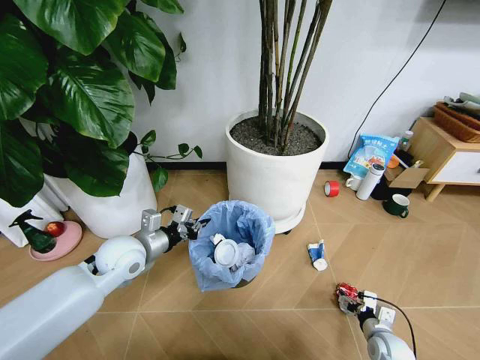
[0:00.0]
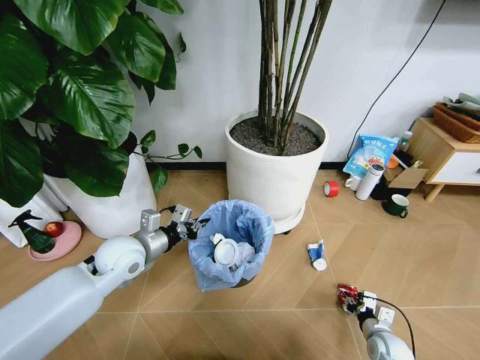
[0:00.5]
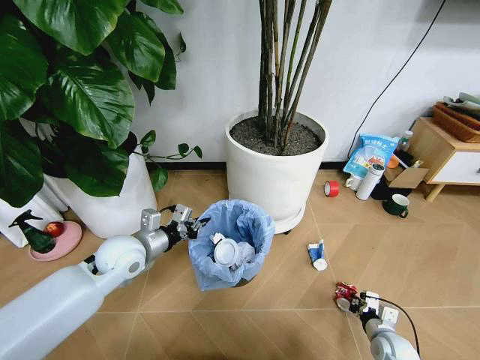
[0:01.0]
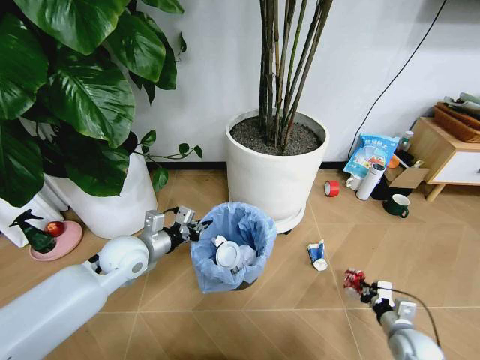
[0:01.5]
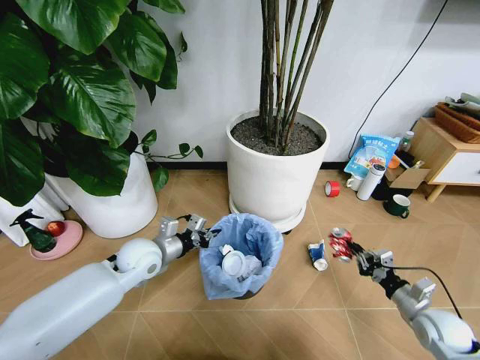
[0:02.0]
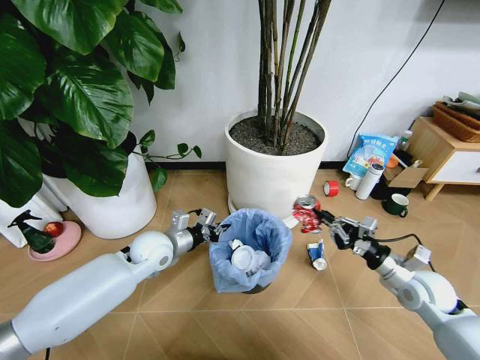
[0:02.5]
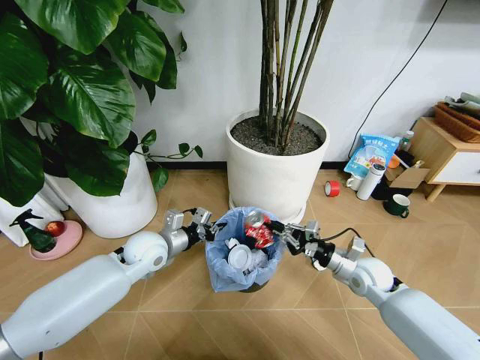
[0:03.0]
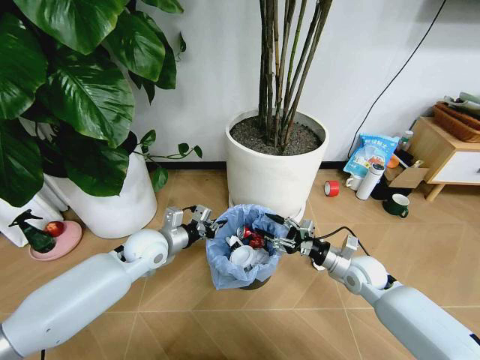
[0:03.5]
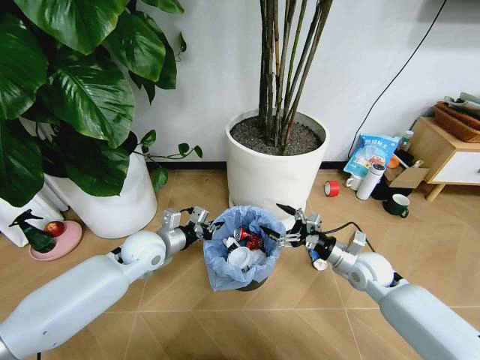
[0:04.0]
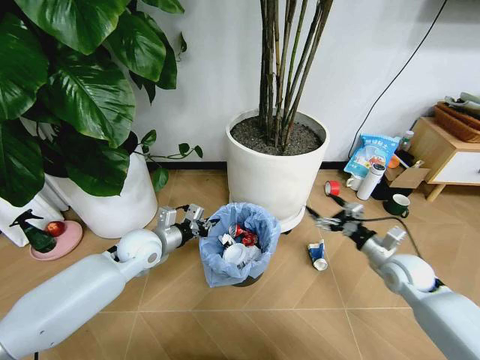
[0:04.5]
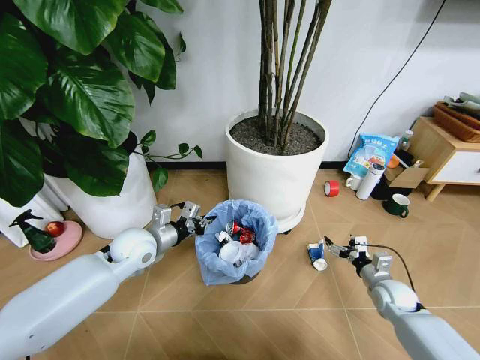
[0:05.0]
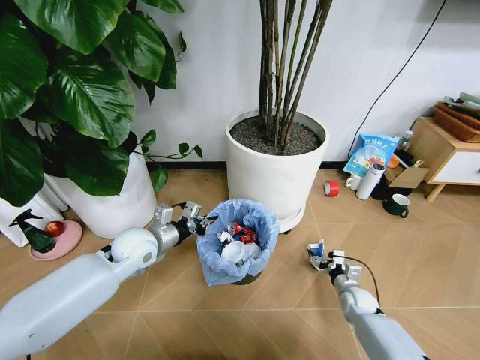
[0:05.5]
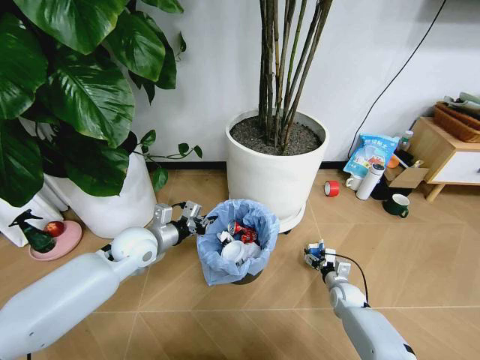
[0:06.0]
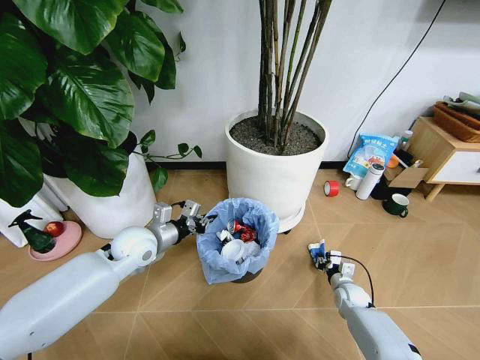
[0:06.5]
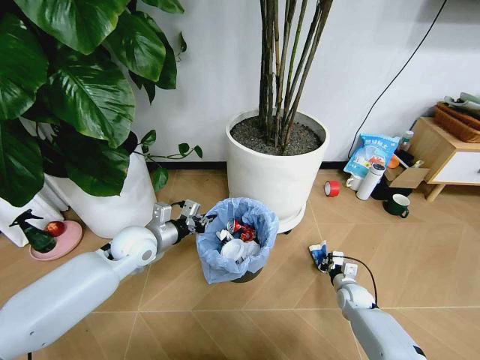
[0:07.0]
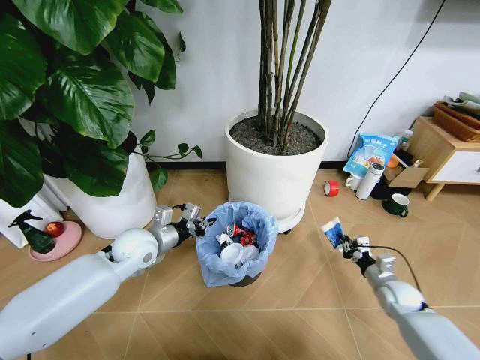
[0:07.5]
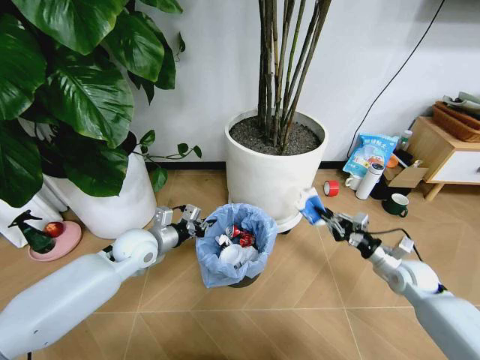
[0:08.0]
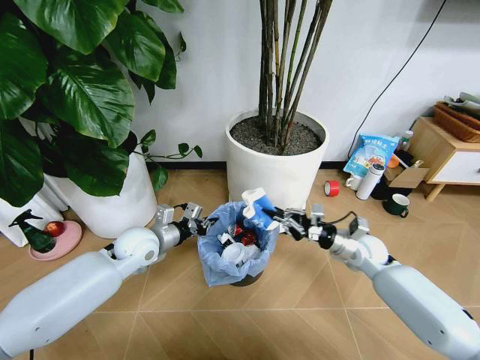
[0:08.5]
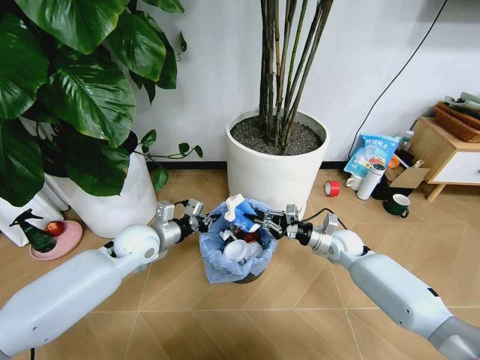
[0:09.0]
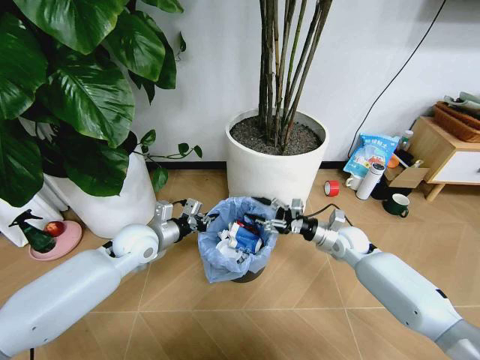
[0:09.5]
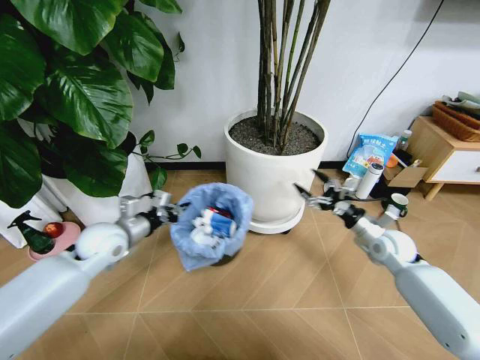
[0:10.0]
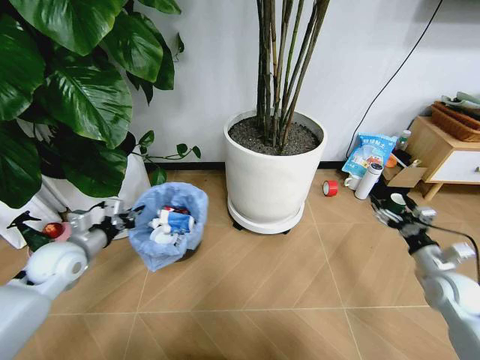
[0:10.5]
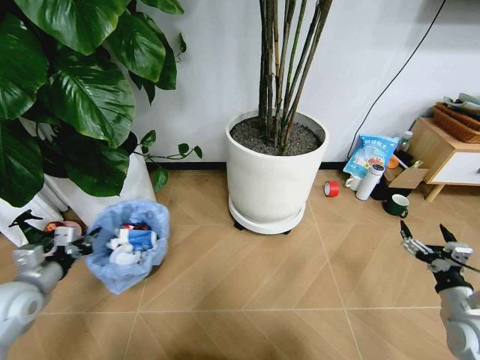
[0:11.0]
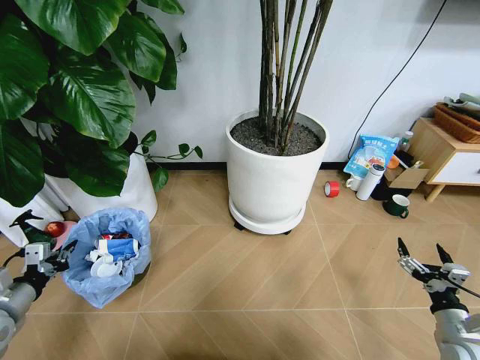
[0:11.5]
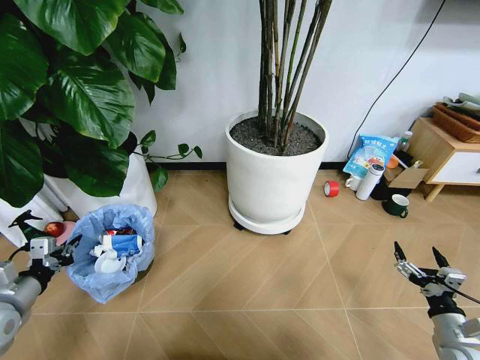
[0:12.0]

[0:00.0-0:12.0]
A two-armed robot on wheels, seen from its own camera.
Task of the whole recording: Pick up the trash bin and place the garbage on the floor into it.
0:00.0 to 0:02.0: The right gripper heads upward and to the right, covering about 15 cm, and closes up.
0:02.0 to 0:04.0: The right gripper shifts roughly 20 cm to the left and forward, and opens up.
0:04.0 to 0:06.0: The right gripper is displaced downward by approximately 20 cm.
0:06.0 to 0:08.0: The right gripper travels upward and to the right by some 20 cm, and closes up.
0:08.0 to 0:10.0: The right gripper moves forward, some 5 cm, moves approximately 15 cm to the left and comes back, and opens its fingers, while the left gripper shifts some 5 cm to the left.
0:10.0 to 0:12.0: The left gripper heads to the left and backward, covering some 20 cm. Meanwhile the right gripper travels backward by about 25 cm.

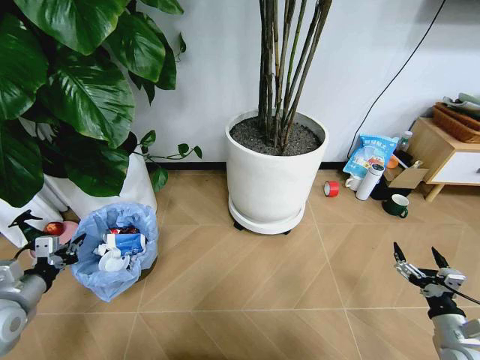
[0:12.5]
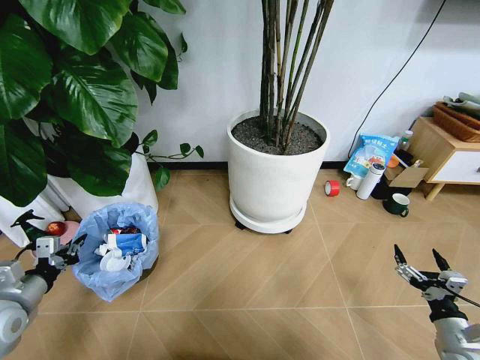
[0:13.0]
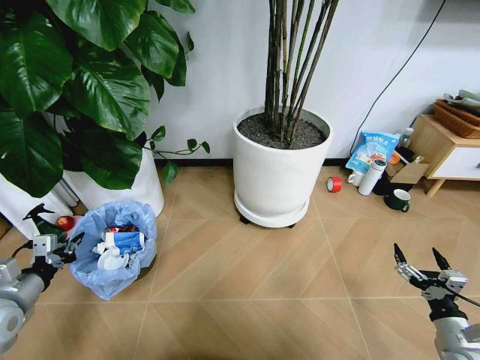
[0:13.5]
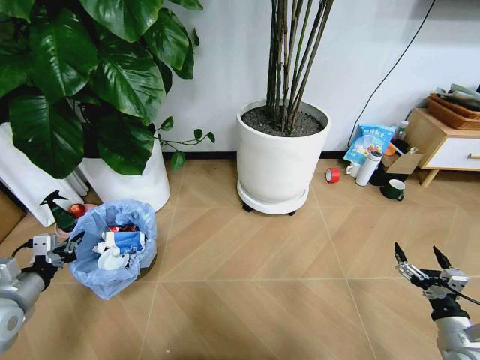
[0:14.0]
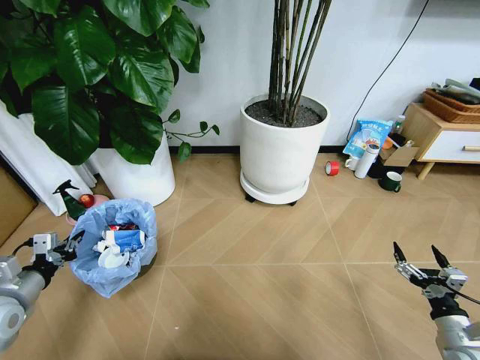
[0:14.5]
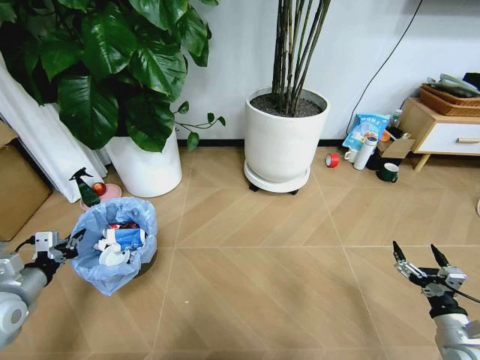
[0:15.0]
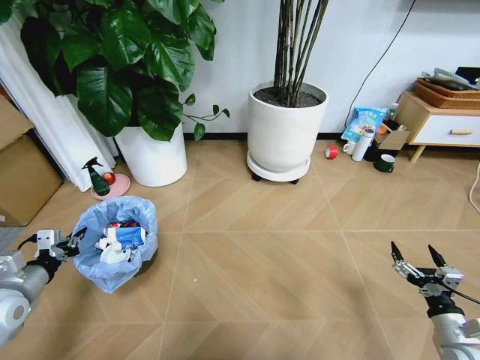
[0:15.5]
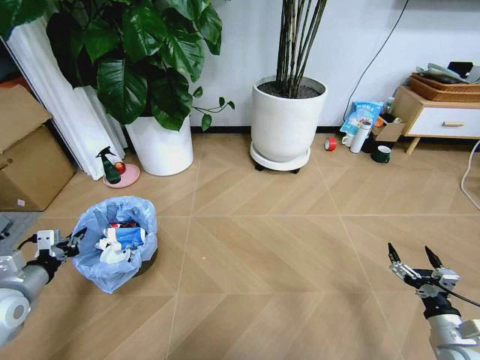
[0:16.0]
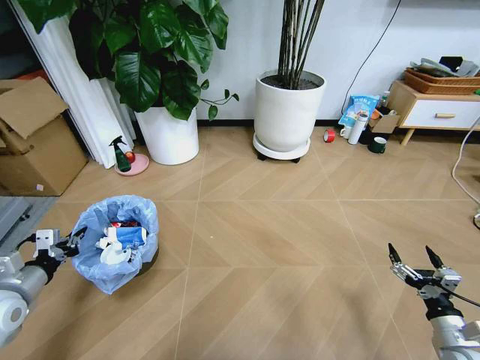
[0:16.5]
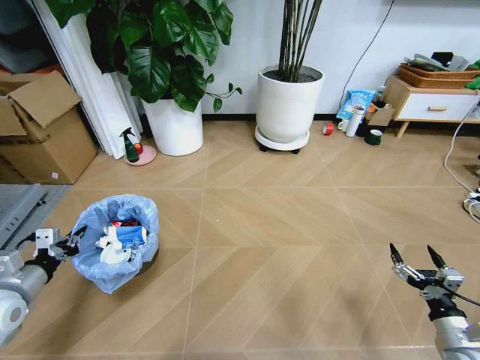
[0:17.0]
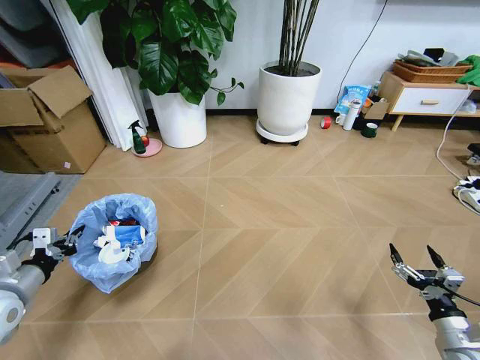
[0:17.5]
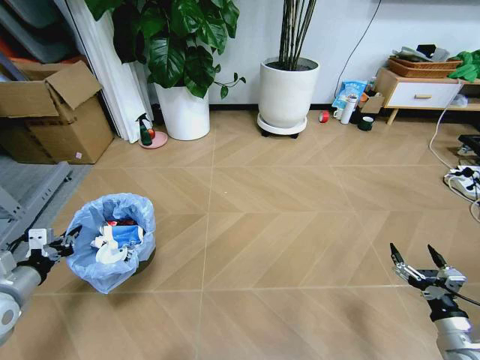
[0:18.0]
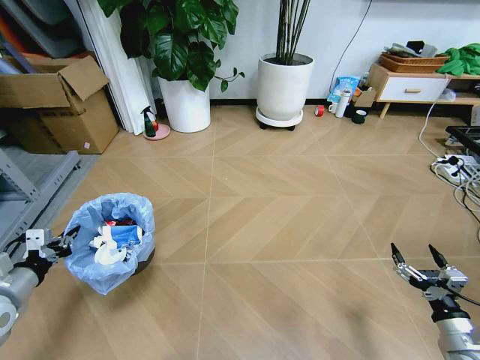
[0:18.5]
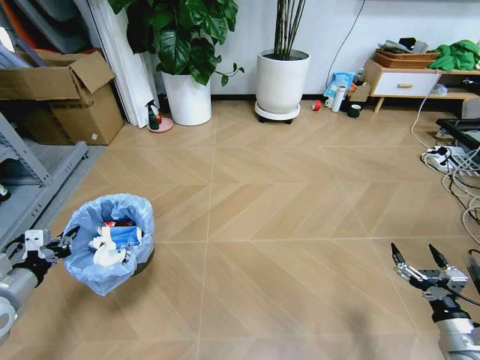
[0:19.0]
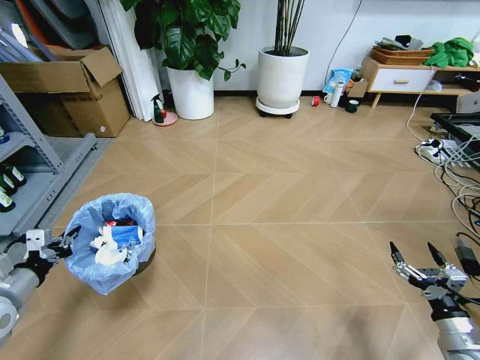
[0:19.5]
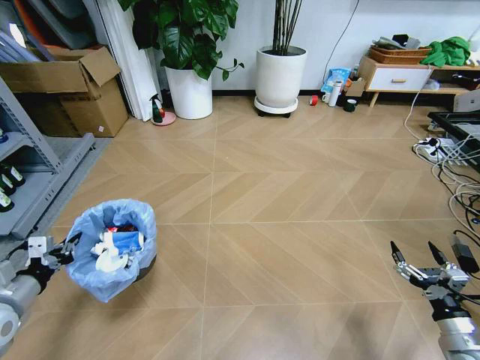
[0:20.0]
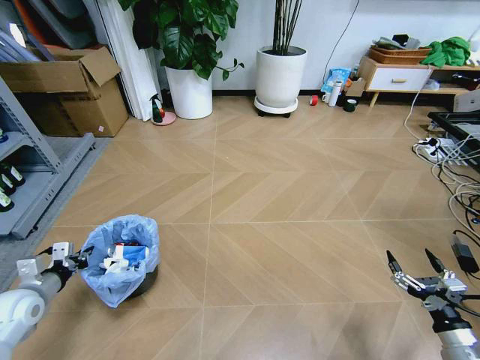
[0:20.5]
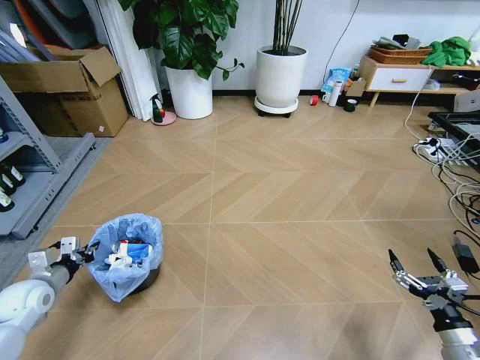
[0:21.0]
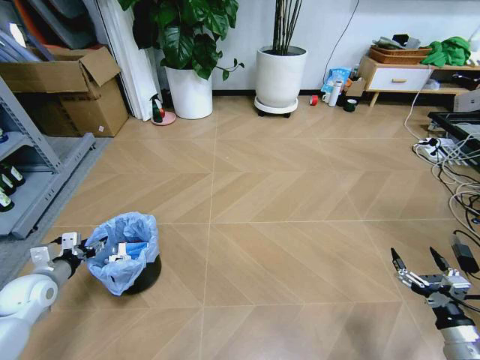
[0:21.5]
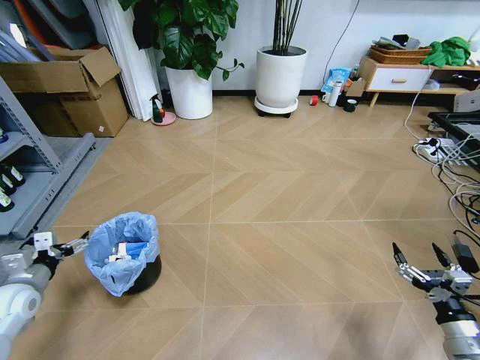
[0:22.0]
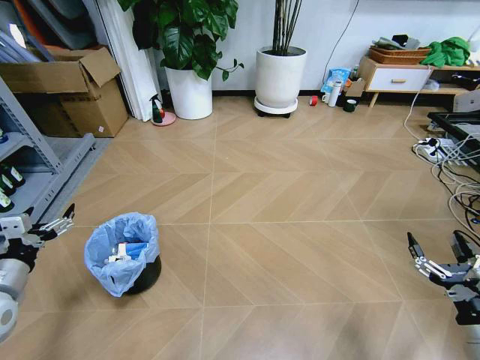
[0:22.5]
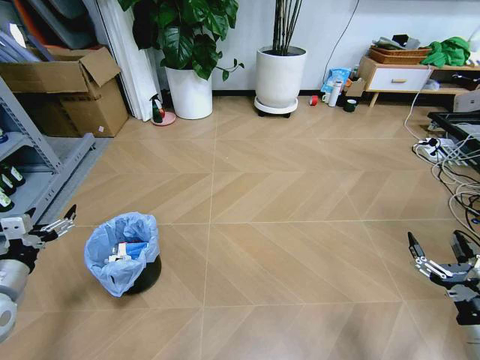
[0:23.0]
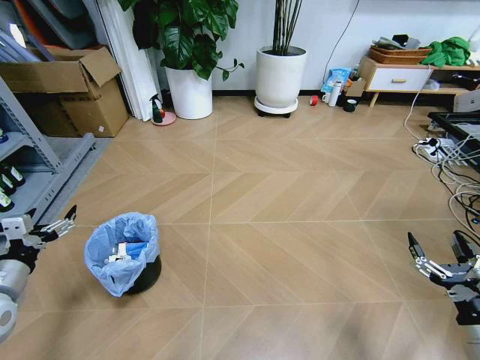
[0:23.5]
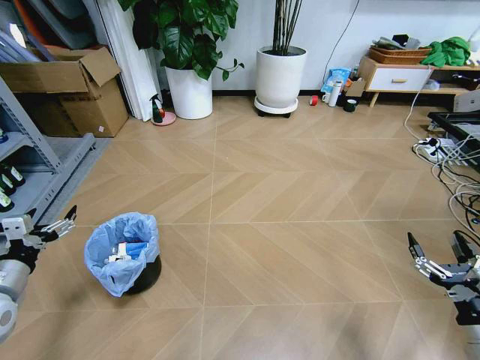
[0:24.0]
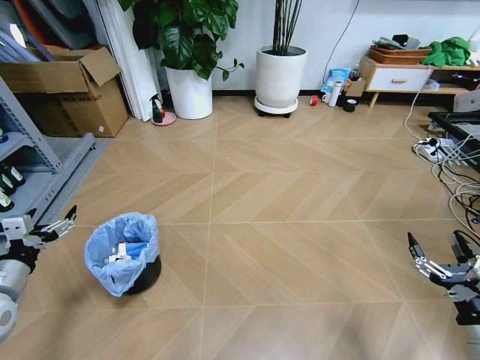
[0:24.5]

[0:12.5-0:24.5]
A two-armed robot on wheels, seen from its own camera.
Task of the whole recording: Pick up the trash bin and place the garbage on the floor into it.
0:18.5 to 0:20.5: The left gripper goes roughly 5 cm downward.
0:20.5 to 0:22.5: The two grippers go about 5 cm upward. The left gripper opens up.
0:22.5 to 0:24.5: Both grippers stay about where they are.
